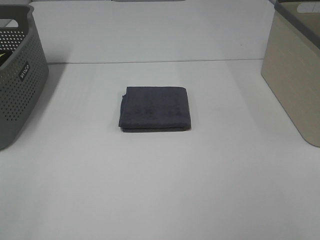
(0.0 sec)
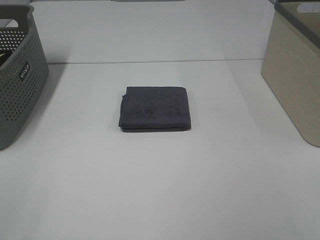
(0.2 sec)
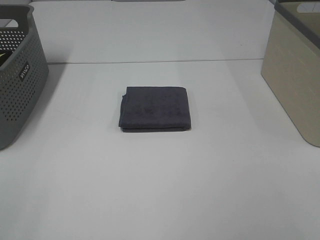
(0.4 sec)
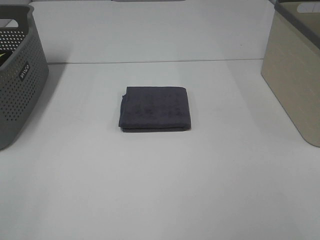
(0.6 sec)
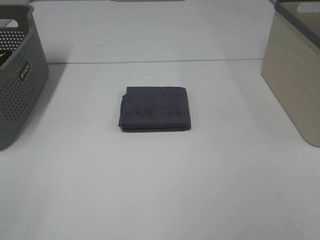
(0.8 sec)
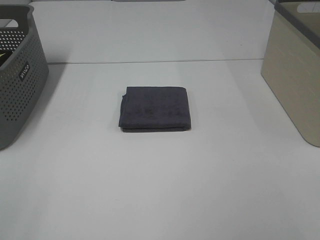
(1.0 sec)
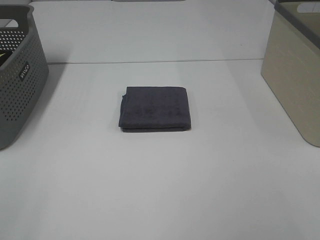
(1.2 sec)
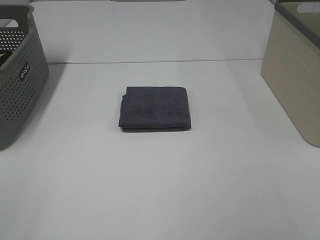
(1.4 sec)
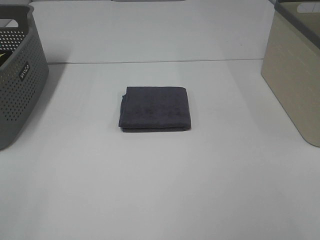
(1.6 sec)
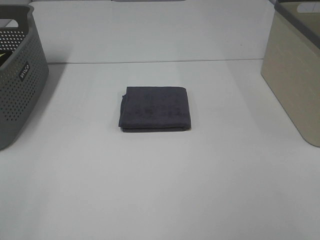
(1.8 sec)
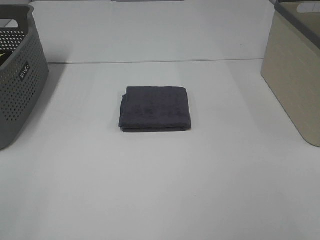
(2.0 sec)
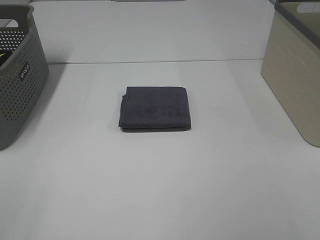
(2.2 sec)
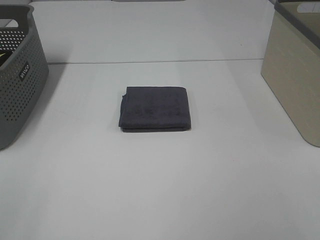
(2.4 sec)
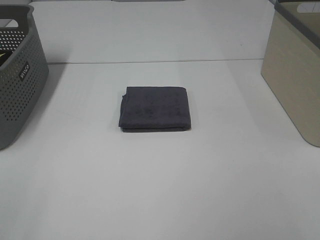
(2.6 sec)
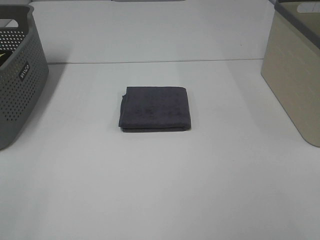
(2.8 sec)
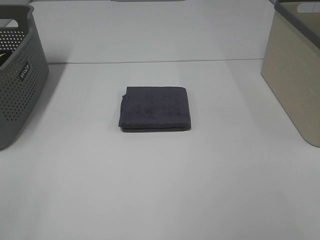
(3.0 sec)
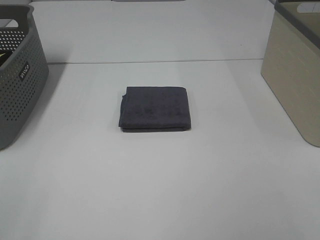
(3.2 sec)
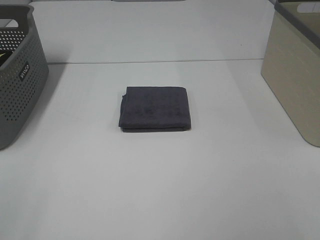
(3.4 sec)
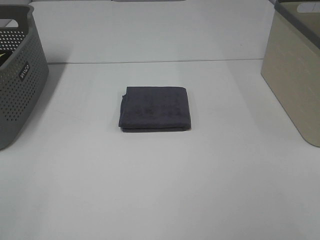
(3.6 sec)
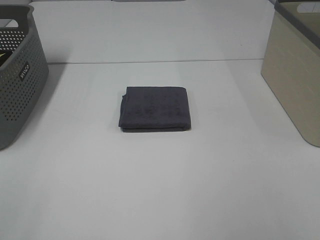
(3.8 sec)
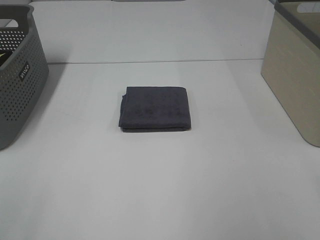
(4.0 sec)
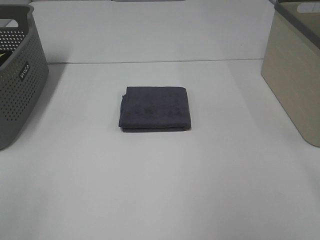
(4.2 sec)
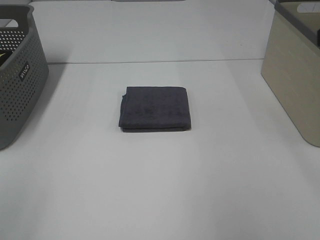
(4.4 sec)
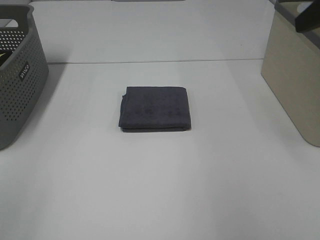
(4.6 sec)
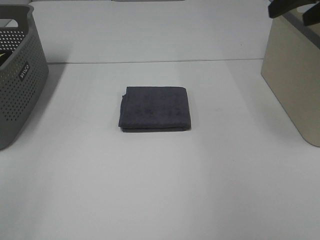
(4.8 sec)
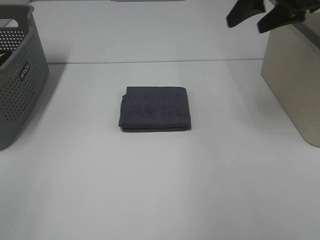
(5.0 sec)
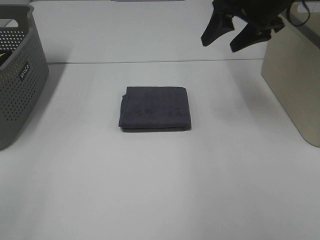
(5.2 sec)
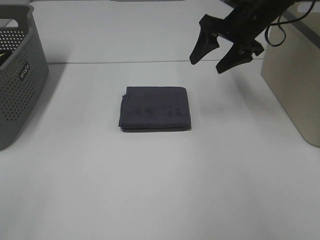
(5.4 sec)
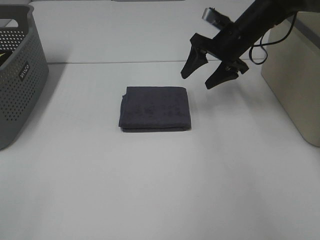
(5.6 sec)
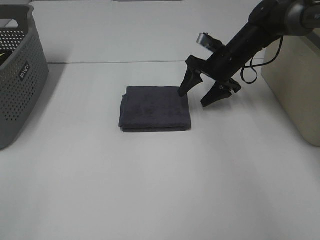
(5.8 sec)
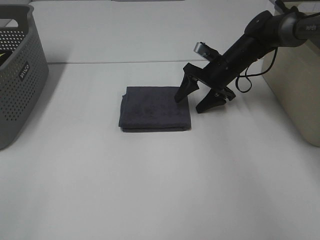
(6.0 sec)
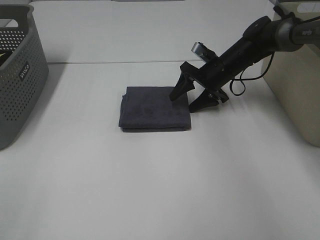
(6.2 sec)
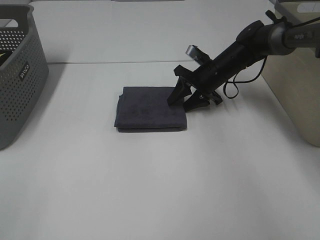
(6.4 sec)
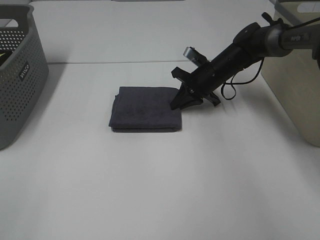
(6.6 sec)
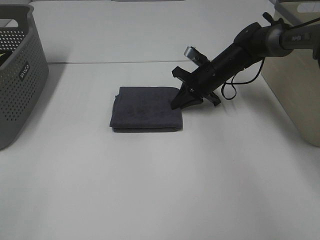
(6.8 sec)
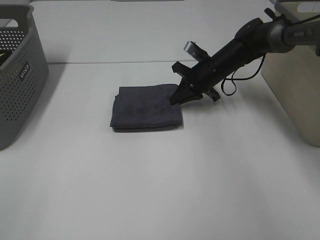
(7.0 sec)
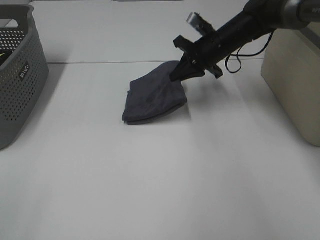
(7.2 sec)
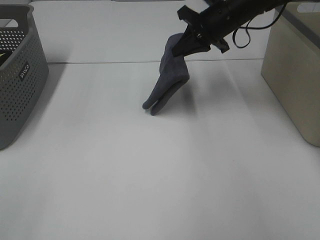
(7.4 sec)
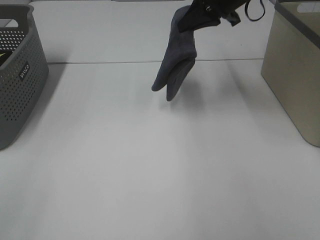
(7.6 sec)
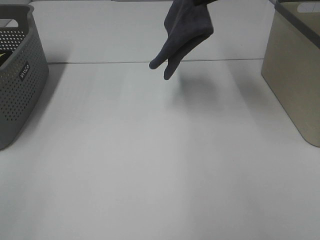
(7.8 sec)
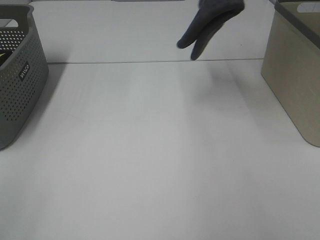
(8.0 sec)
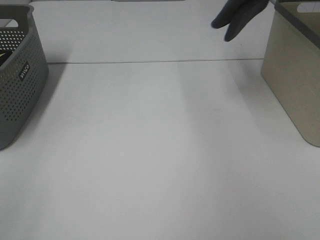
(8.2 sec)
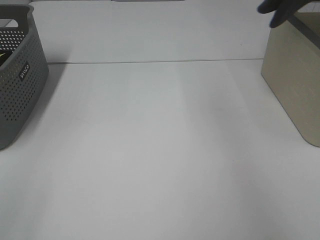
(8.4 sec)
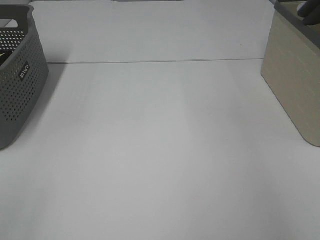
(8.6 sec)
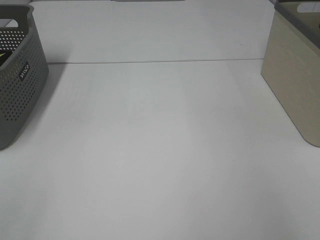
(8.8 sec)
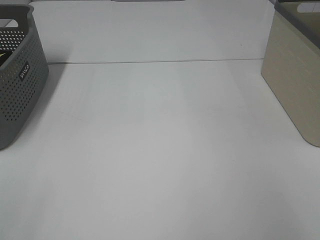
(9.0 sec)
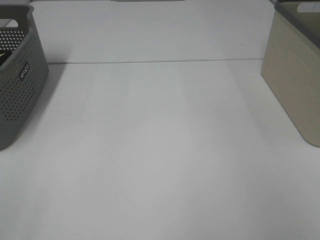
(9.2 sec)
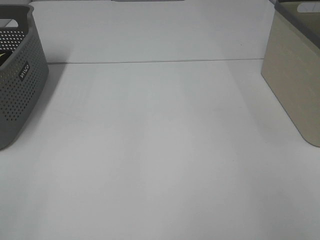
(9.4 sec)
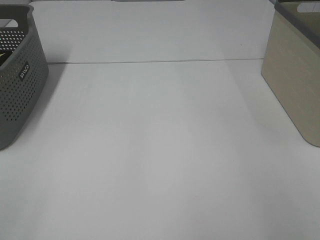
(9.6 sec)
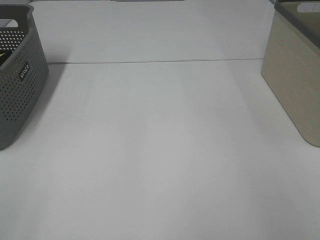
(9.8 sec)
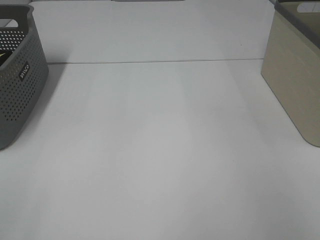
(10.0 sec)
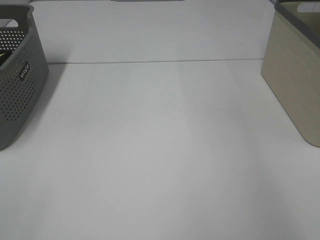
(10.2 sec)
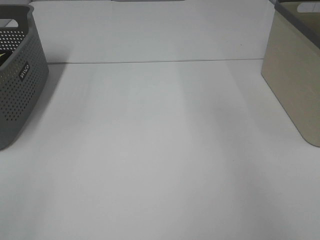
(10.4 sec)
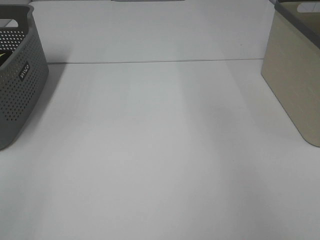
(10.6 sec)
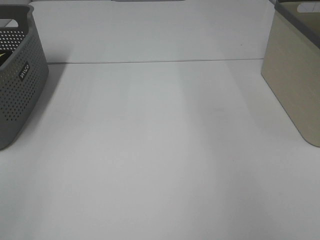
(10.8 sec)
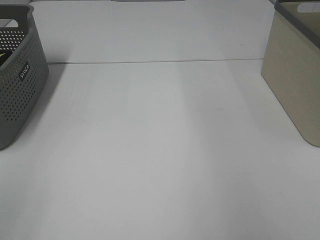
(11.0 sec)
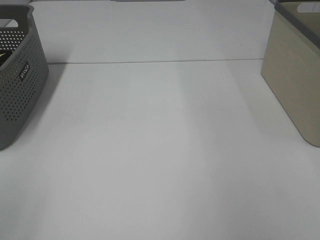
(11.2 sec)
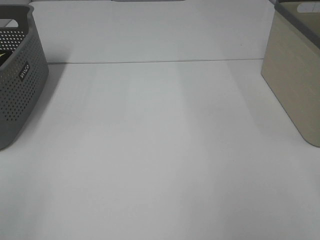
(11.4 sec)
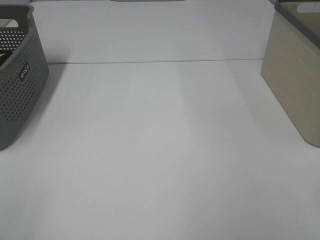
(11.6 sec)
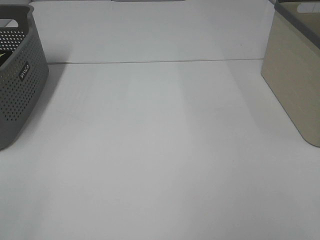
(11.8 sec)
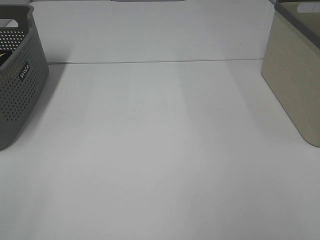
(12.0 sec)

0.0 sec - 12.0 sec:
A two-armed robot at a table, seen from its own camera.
Step, 0.0 sec - 6.6 sec: Right hand: grab the folded grey towel.
Step, 6.8 sec - 9.6 sec: Right hand: place the grey towel in right basket.
0.0 sec - 3.0 sec: The two grippers keep their place.
4.4 sec - 6.0 sec: The right gripper heads forward, downward and to the left, covering about 40 cm.
6.0 sec - 7.6 sec: The right gripper is displaced upward by some 20 cm, and closes its fingers.
7.6 sec - 9.0 sec: The right gripper is displaced to the right and upward by roughly 30 cm.

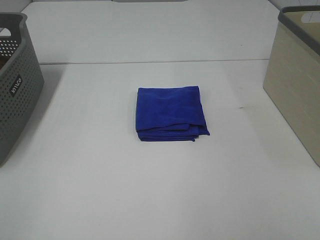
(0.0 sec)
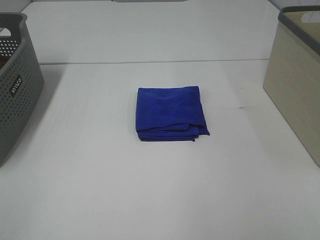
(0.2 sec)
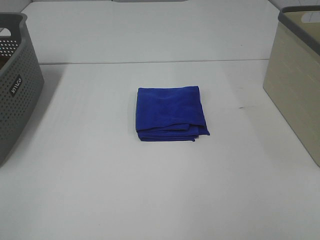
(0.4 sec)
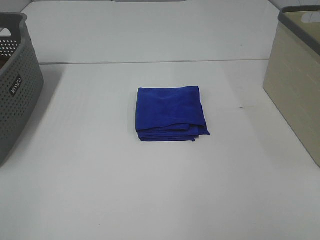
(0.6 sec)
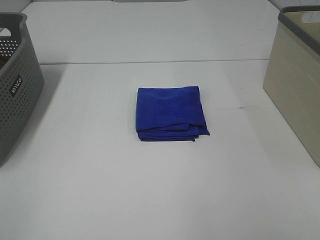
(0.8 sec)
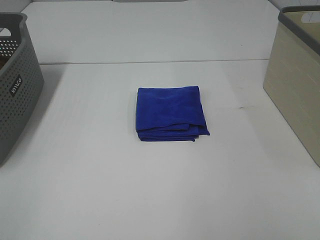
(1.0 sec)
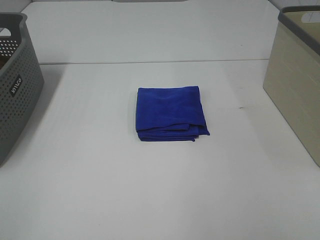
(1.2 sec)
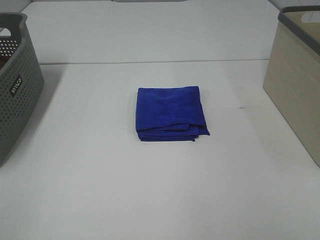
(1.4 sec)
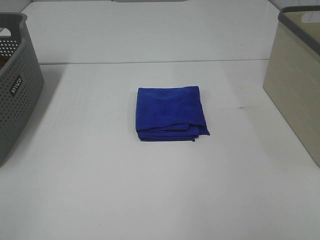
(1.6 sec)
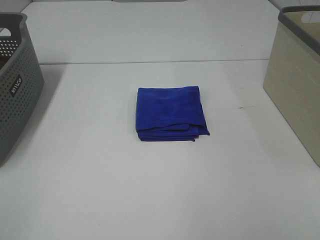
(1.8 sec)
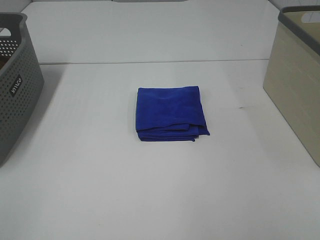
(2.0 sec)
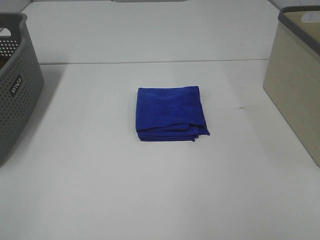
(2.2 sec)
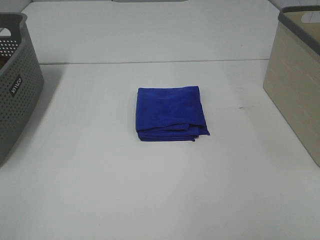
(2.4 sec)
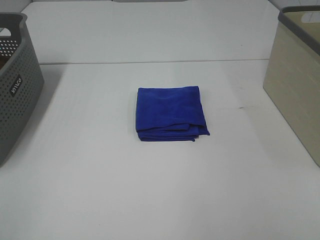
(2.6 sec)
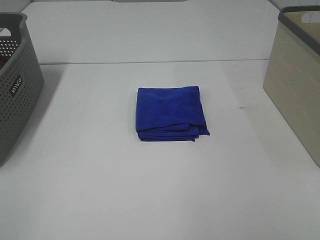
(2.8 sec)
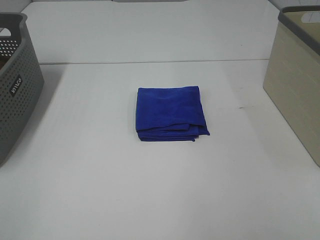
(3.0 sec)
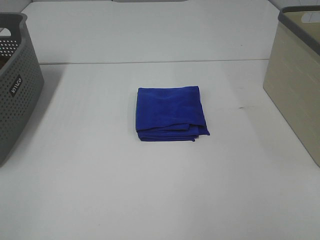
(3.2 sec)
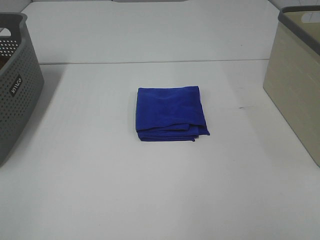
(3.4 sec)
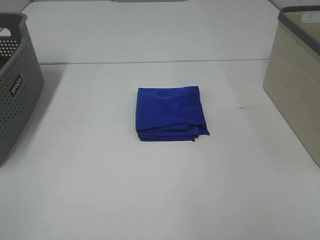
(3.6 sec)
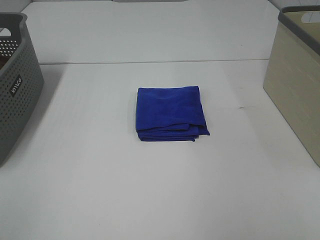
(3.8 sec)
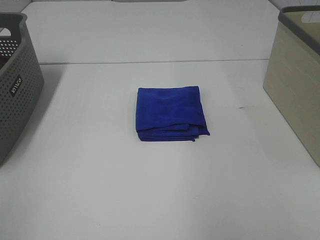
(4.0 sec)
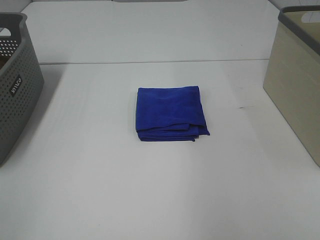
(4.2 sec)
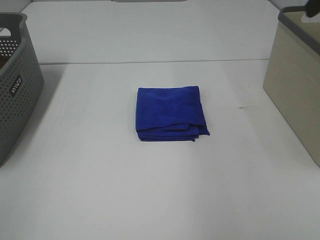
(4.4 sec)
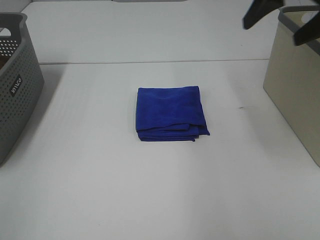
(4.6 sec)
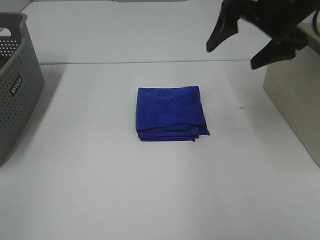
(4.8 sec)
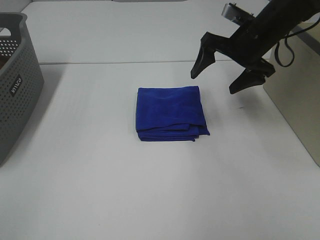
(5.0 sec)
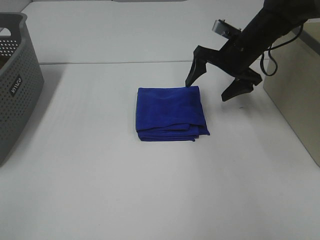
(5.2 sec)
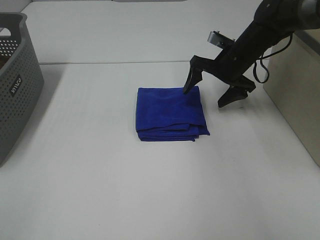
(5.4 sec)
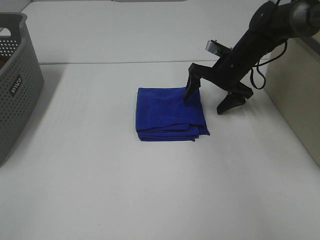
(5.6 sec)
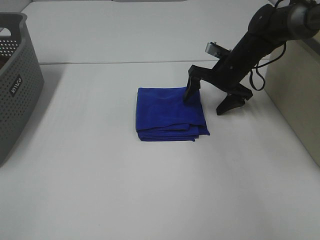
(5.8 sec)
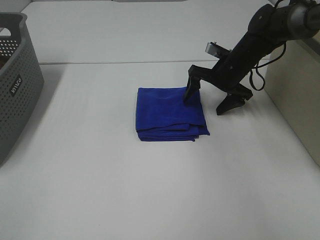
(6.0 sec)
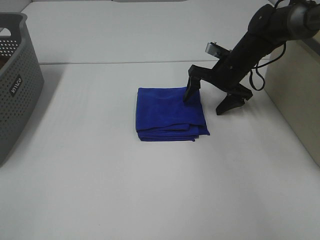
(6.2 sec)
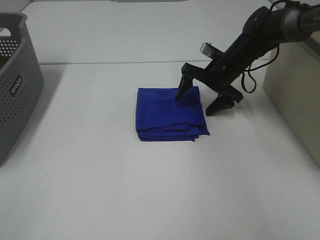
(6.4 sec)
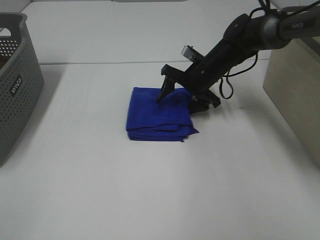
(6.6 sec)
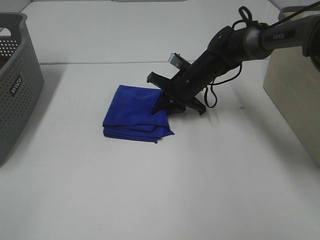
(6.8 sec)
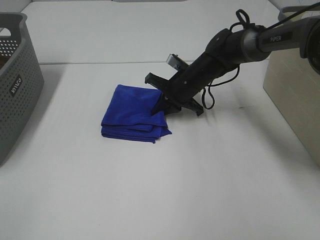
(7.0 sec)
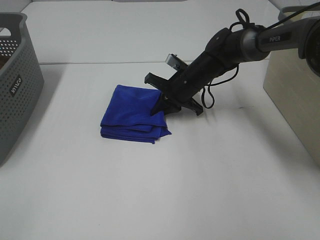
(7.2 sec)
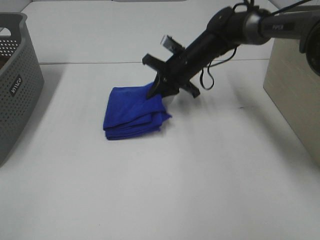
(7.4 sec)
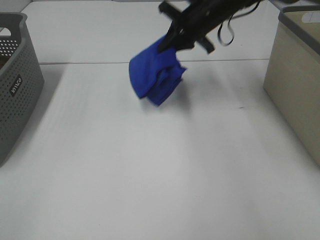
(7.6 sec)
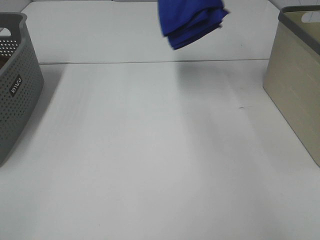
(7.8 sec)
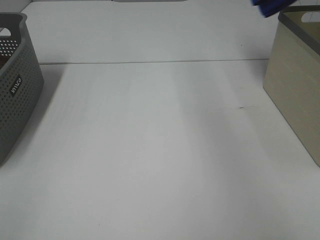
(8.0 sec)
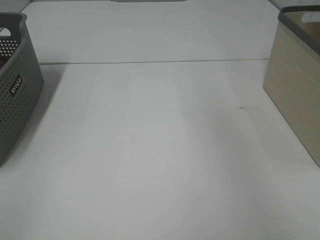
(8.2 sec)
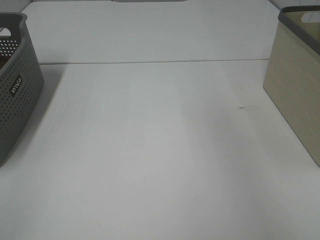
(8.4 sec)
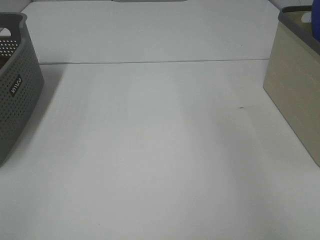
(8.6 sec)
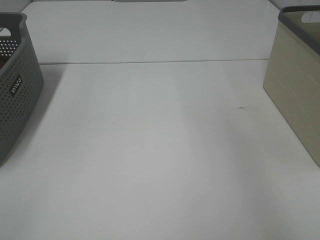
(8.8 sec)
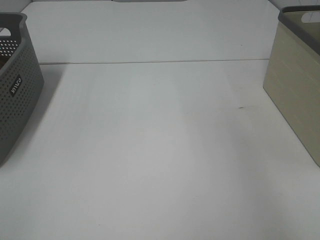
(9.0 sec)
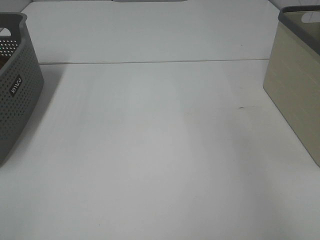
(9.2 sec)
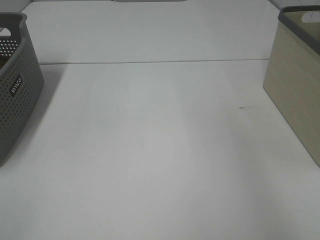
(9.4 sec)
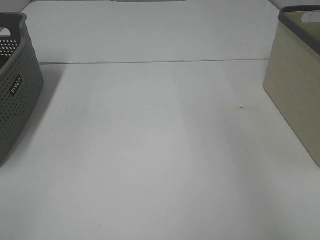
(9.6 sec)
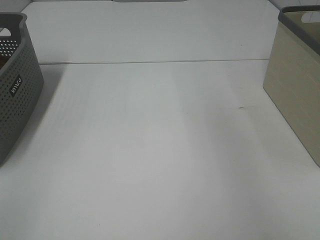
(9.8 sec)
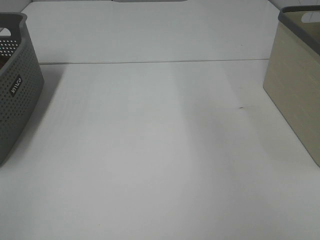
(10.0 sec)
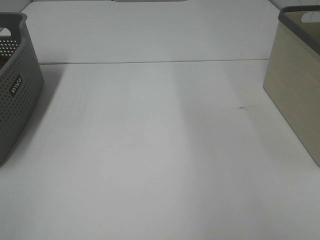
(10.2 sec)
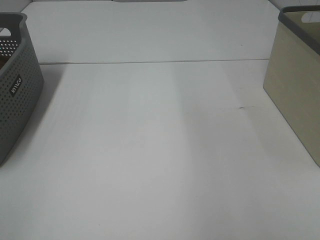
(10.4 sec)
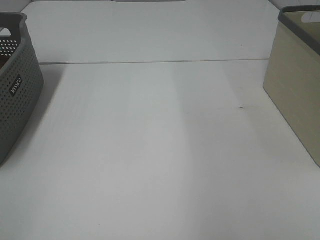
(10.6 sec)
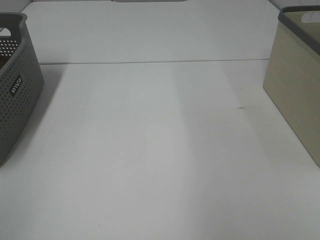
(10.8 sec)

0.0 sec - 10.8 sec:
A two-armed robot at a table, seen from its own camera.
Step, 0.0 sec - 7.0 sec: Right hand: grab the folded blue towel.
Step, 7.2 sec - 9.4 sec: Right hand: place the blue towel in right basket.
0.0 sec - 3.0 sec: The two grippers keep their place.
3.0 sec - 4.6 sec: The right gripper moves forward, roughly 35 cm.
4.6 sec - 6.2 sec: The right gripper shifts about 25 cm downward and forward.
6.2 sec - 7.8 sec: The right gripper heads upward, covering some 25 cm, and closes up.
7.8 sec - 9.2 sec: The right gripper travels to the right by approximately 15 cm, and opens up.
